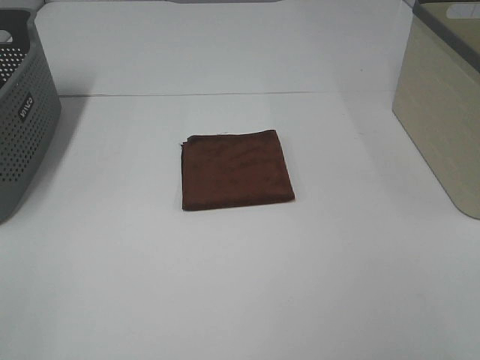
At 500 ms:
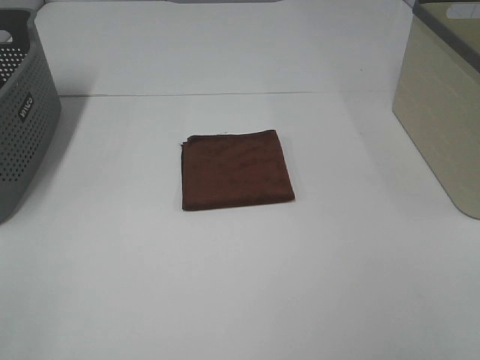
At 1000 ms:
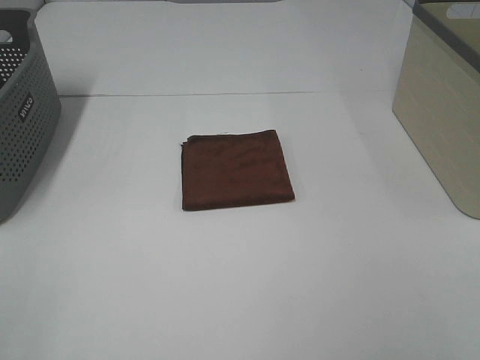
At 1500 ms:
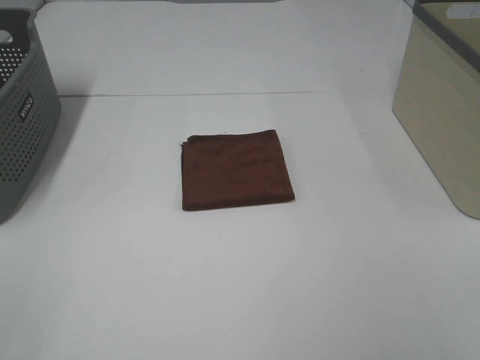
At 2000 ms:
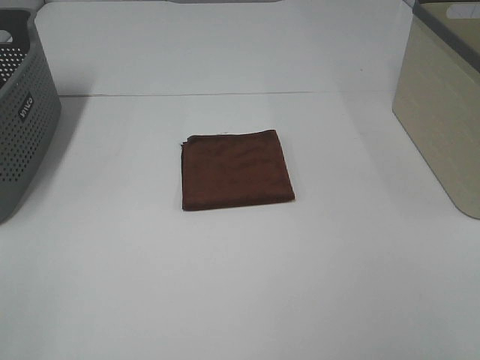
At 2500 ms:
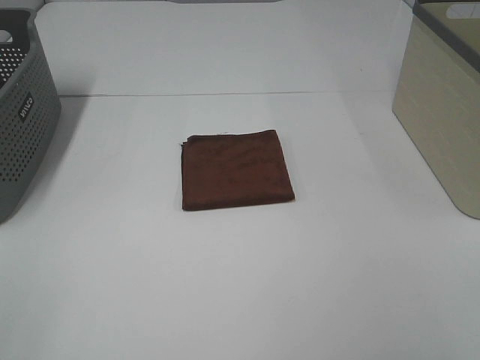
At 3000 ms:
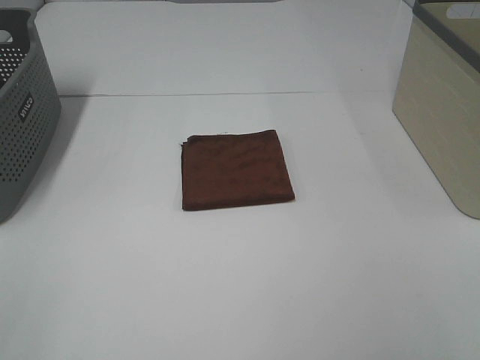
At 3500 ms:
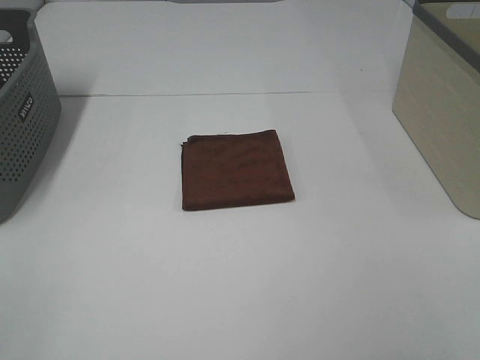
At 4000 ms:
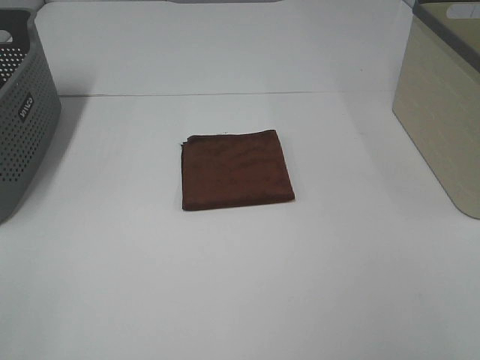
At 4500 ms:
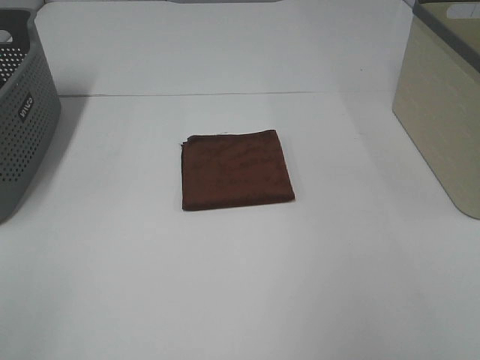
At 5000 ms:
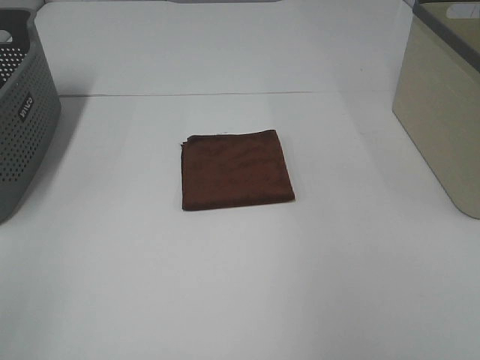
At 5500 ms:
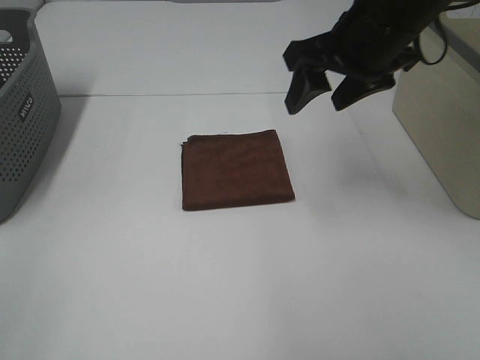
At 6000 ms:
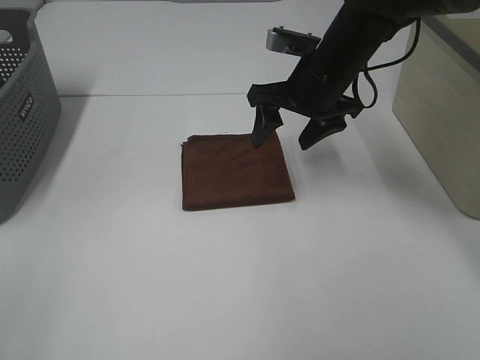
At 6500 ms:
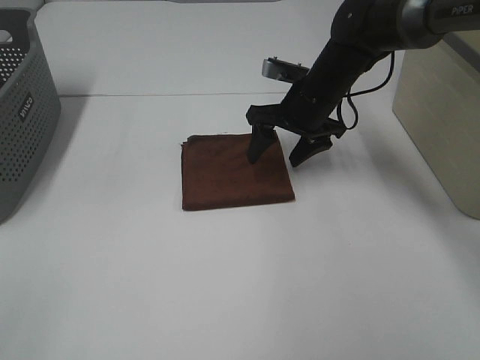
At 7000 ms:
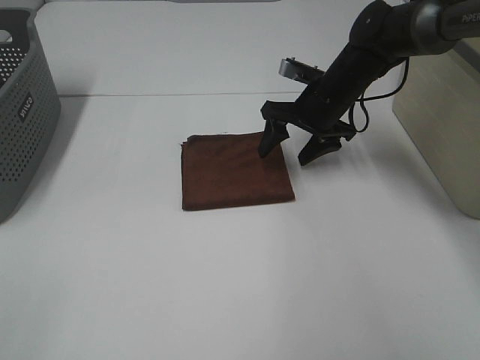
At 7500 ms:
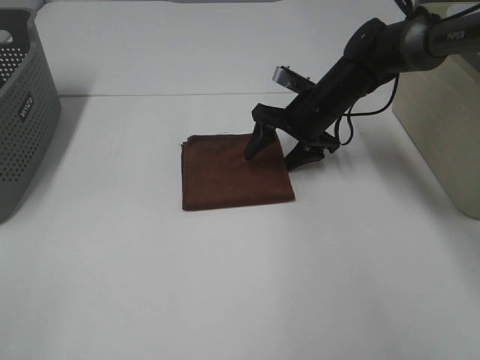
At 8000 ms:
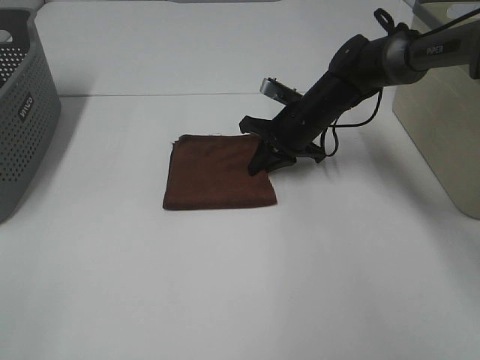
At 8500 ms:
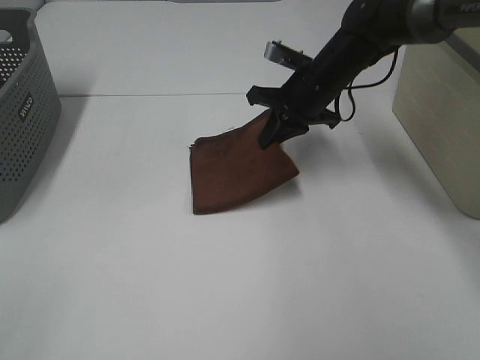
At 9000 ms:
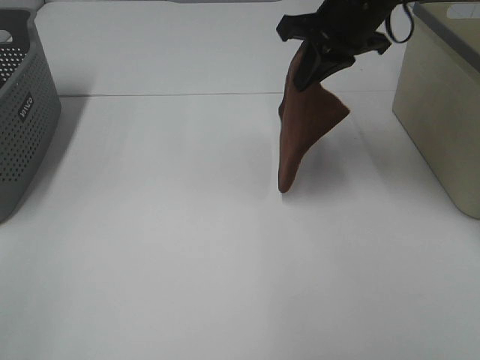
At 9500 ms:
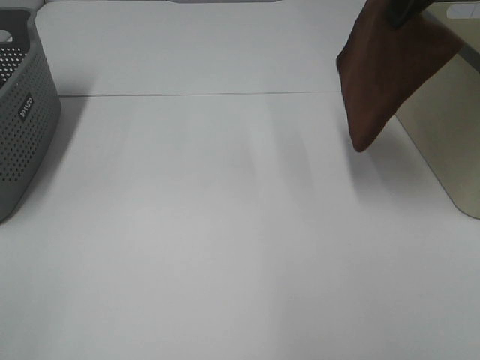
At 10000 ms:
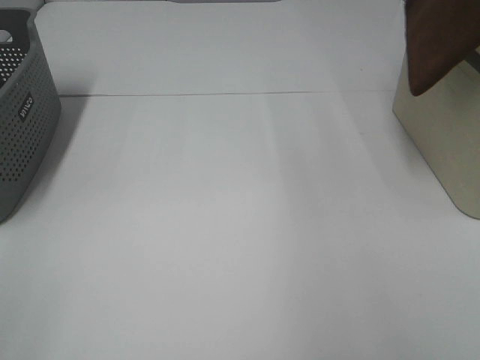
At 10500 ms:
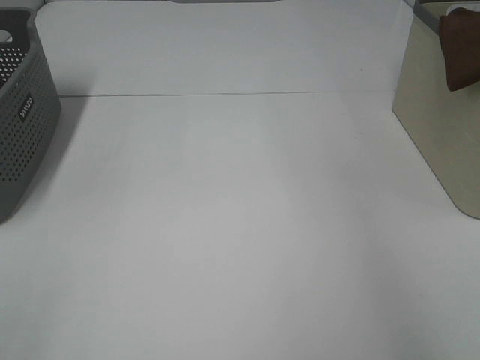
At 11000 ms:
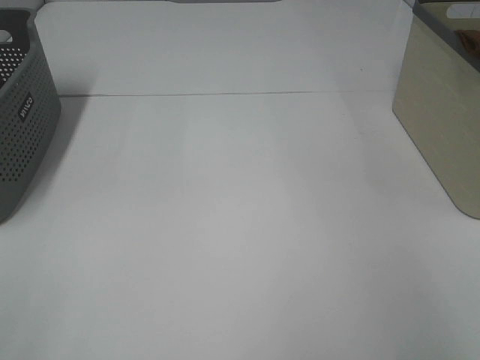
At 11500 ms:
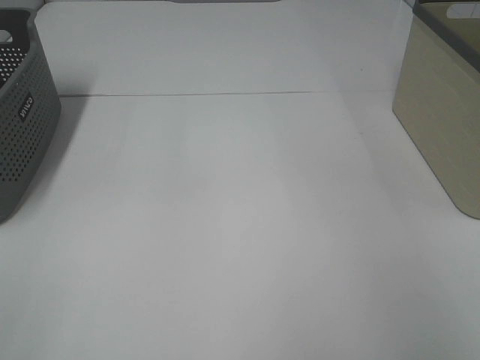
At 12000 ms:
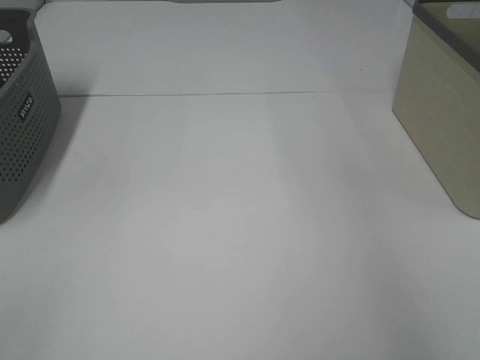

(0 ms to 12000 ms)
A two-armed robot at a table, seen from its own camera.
Step, 0 ms - 8000 ms: Right hand: grab the folded brown towel.
Step, 8500 ms - 11500 ms: Right hand: place the brown towel in right basket.
0 ms - 2000 ms: Both grippers stay put.
4000 ms - 6000 ms: The right gripper travels forward and to the left by about 40 cm.
6000 ms - 8000 ms: The right gripper shifts approximately 10 cm downward and forward, and closes up.
8000 ms - 10000 ms: The right gripper moves upward and to the right, roughly 35 cm.
10000 ms - 12000 ms: The right gripper moves to the right, about 10 cm, and opens.

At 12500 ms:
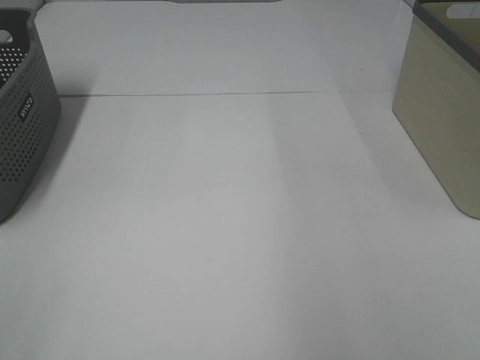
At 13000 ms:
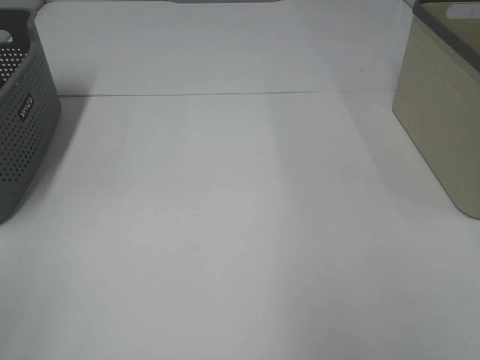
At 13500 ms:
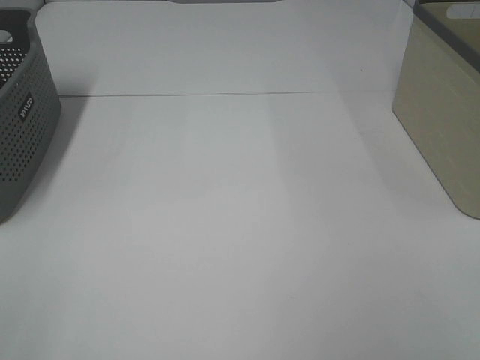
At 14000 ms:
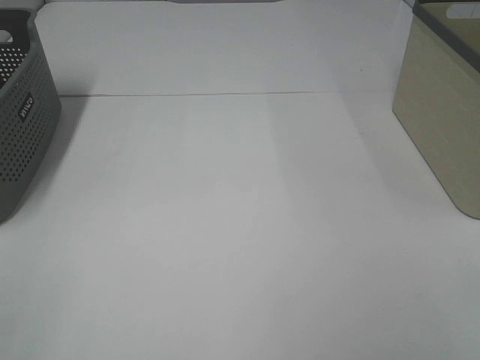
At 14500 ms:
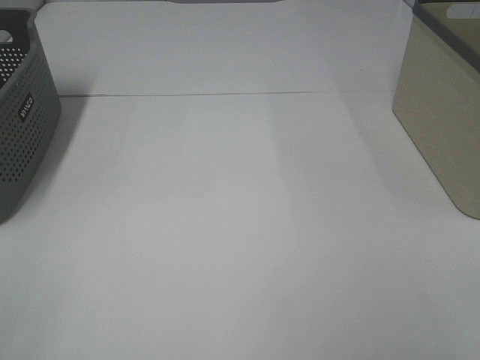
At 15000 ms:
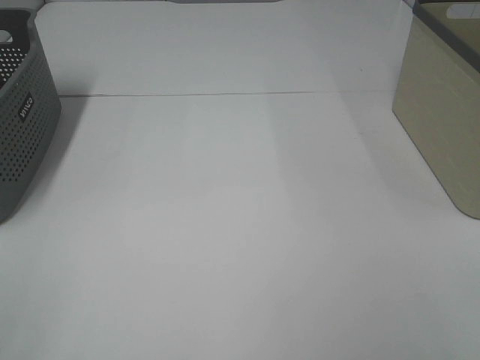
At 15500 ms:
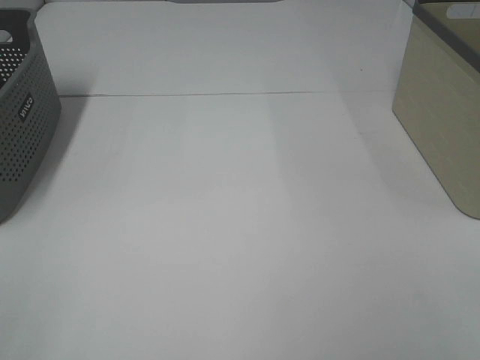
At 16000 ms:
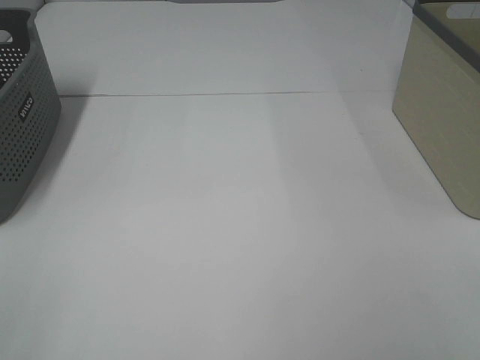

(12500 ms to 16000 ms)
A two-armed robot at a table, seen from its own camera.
14500 ms - 16000 ms: The two grippers keep their place.

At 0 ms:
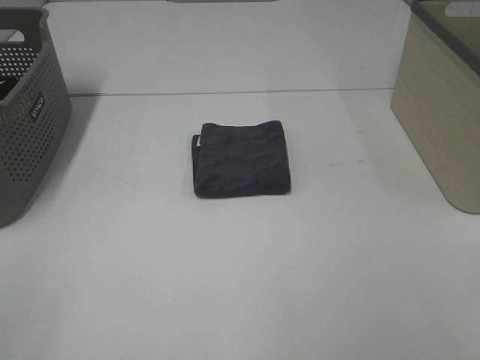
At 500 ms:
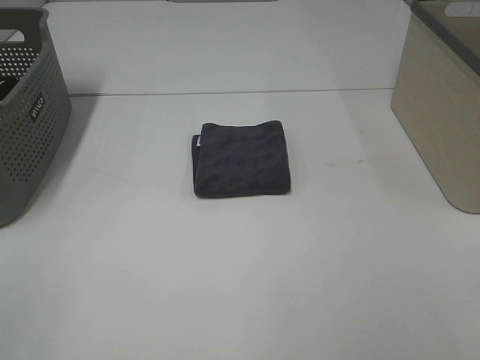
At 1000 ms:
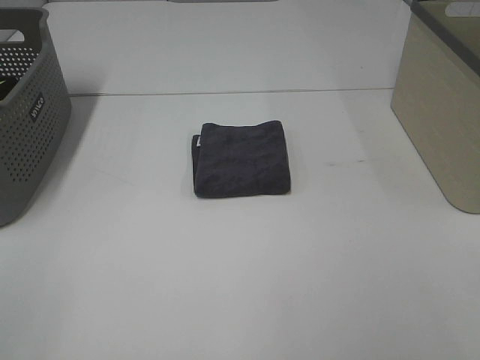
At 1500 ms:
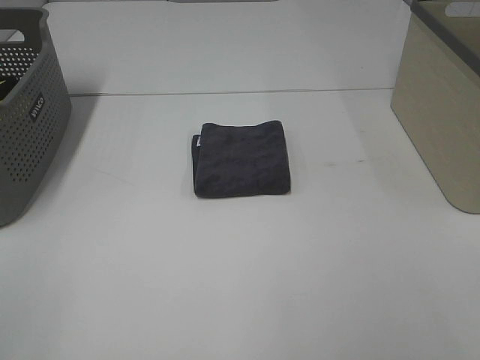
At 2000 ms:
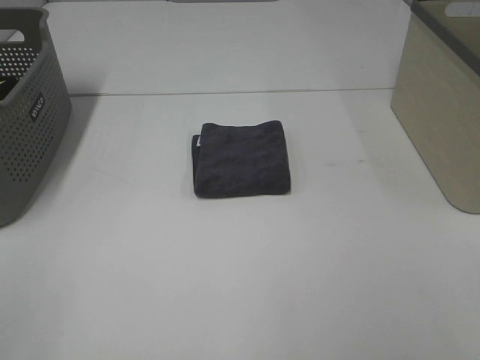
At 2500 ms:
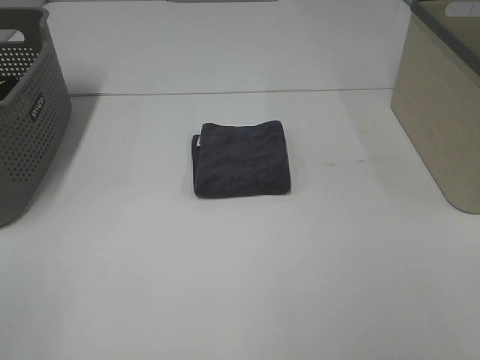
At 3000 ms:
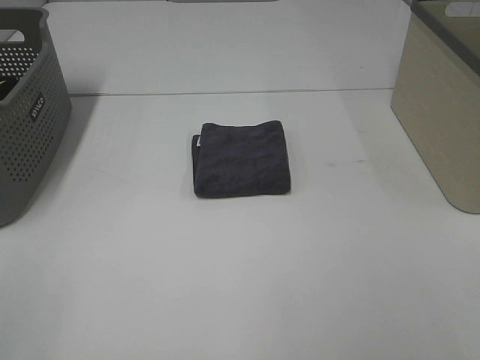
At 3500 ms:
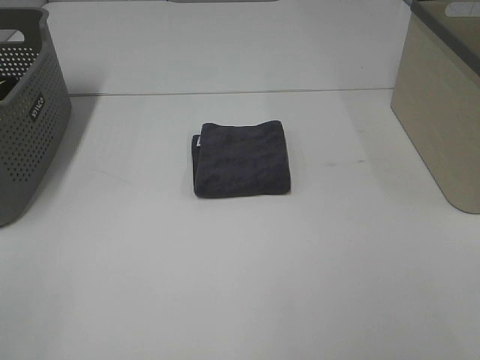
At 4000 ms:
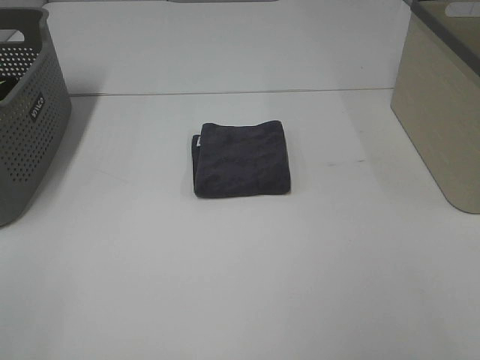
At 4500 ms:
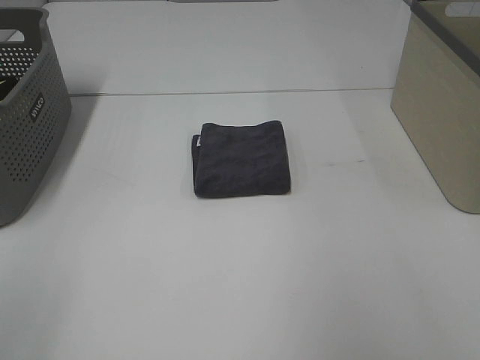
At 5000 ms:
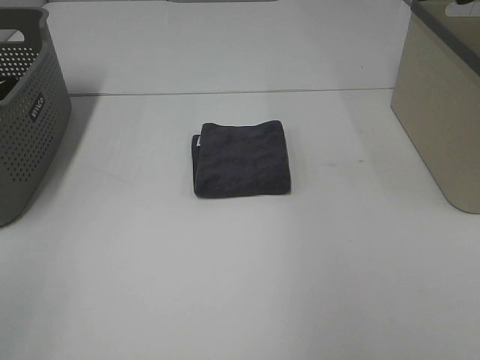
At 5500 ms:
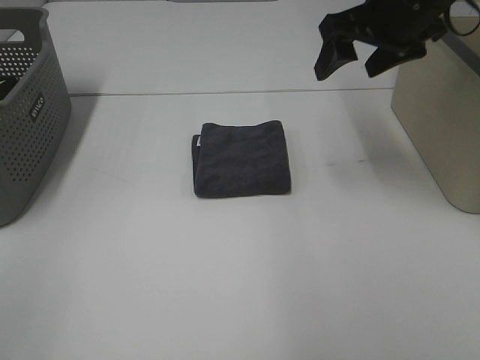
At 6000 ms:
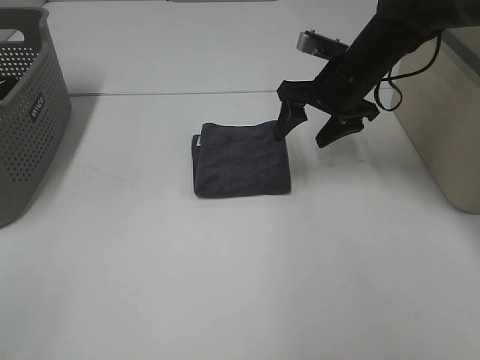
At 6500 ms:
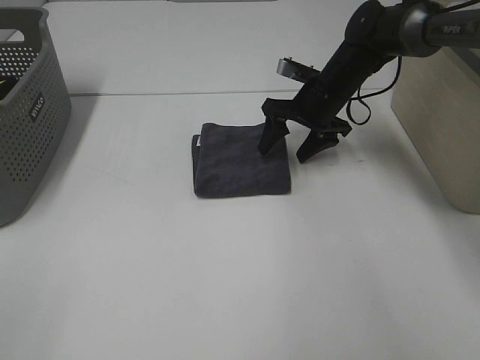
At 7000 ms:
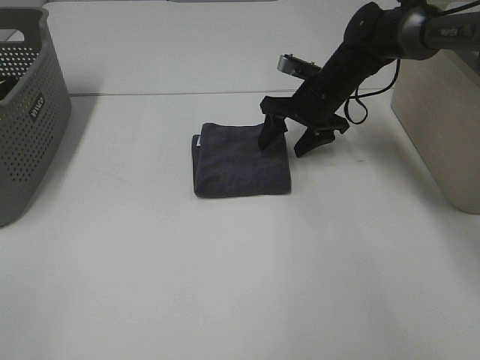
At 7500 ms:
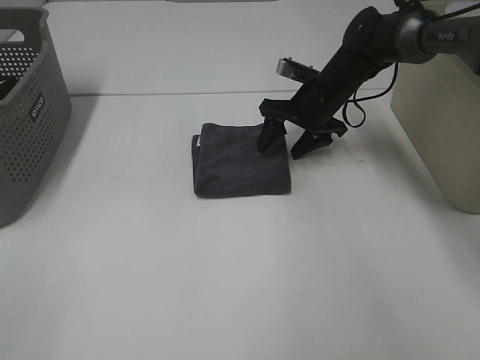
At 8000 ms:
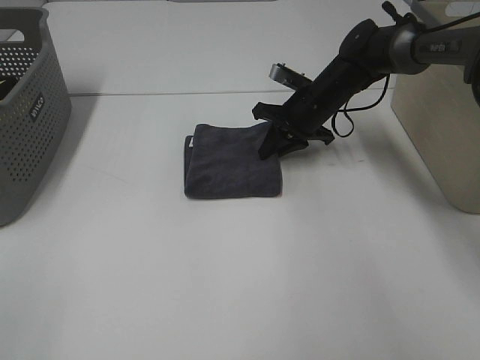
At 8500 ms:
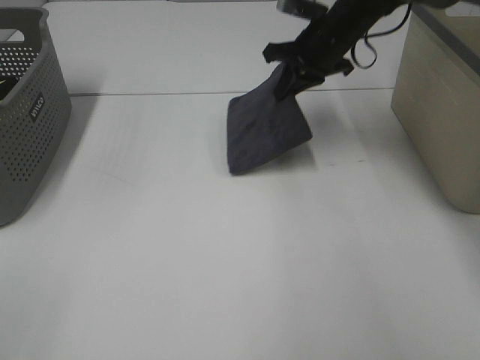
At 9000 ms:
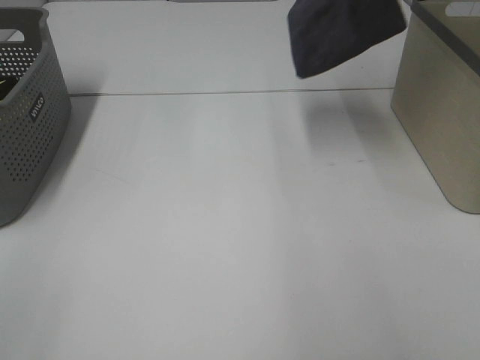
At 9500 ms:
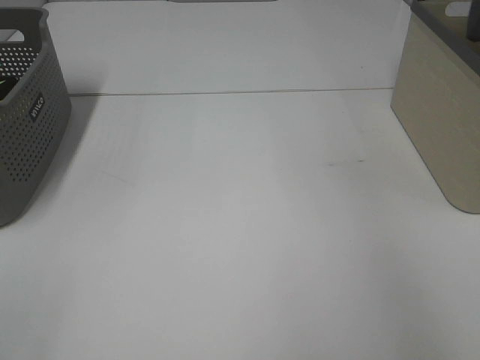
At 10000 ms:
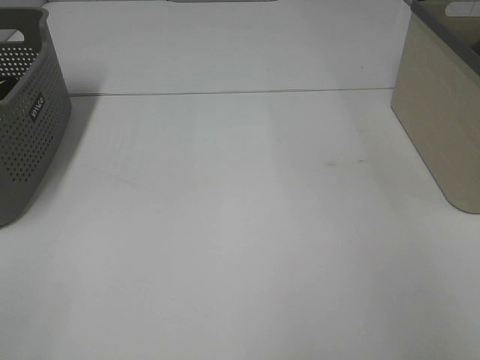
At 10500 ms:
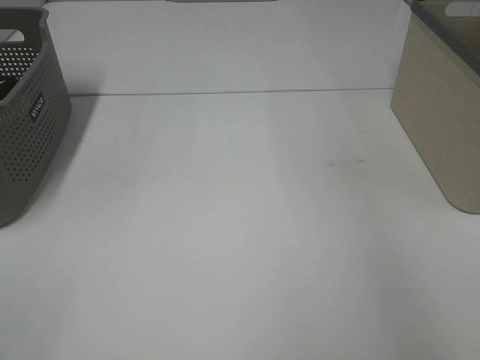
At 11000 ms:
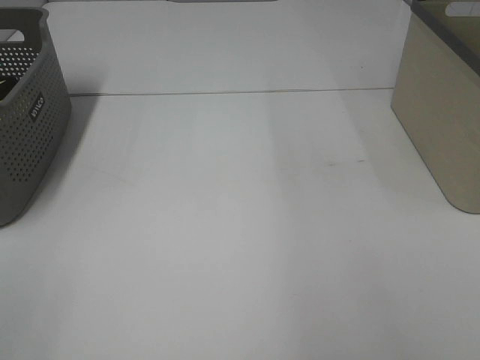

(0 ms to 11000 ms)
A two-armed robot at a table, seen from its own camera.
Step, 0 ms - 8000 ms: Right hand: grab the folded grey towel.
Step, 8500 ms - 10000 ms: Right hand: place the grey towel in right basket.
0 ms - 3500 ms: Neither gripper changes place.
3500 ms - 5500 ms: The right gripper travels forward by some 40 cm.
5500 ms - 7500 ms: The right gripper shifts some 20 cm downward and forward.
7500 ms - 9000 ms: The right gripper heads upward, covering about 30 cm, and closes.
9000 ms - 11000 ms: The right gripper travels to the right and back again, some 20 cm each way, and opens.
